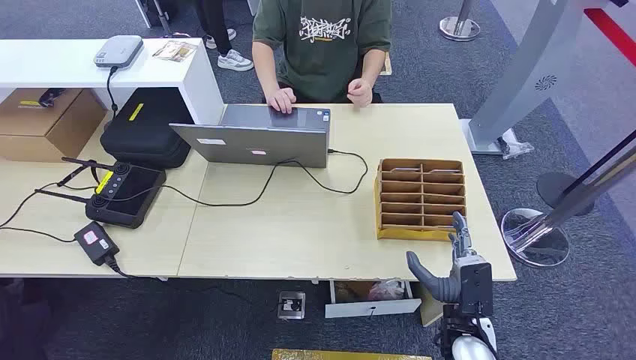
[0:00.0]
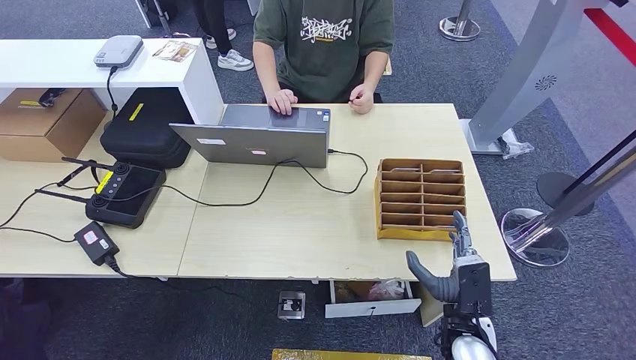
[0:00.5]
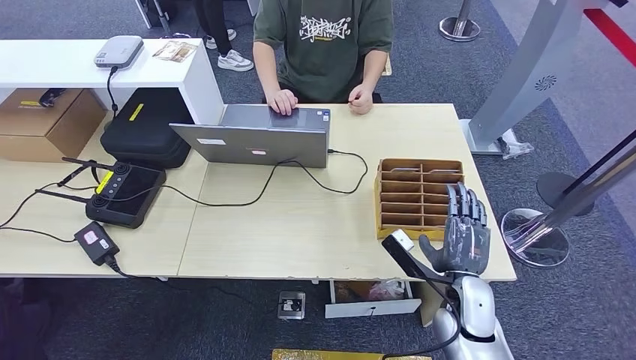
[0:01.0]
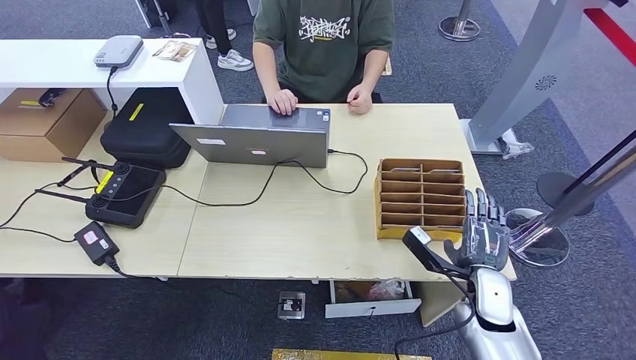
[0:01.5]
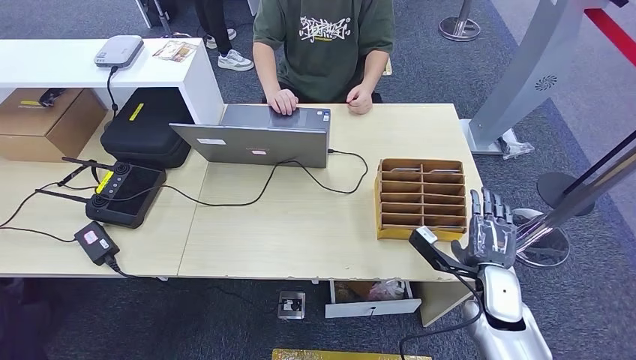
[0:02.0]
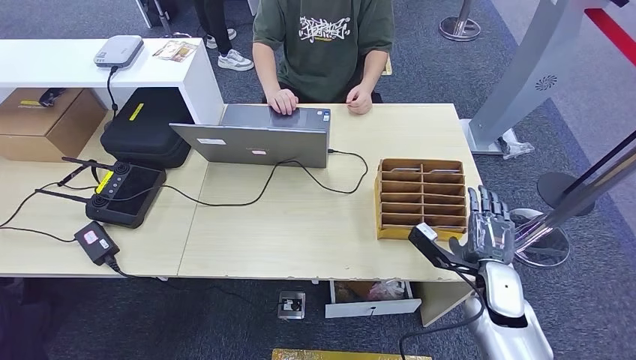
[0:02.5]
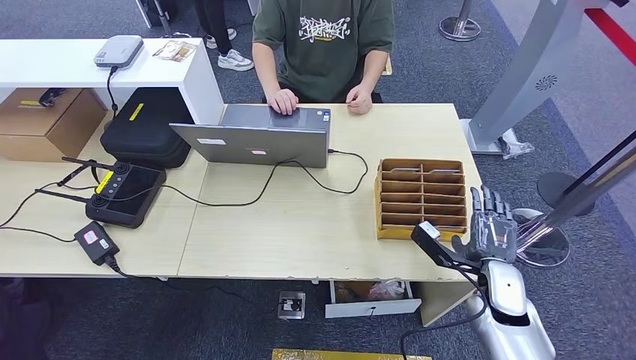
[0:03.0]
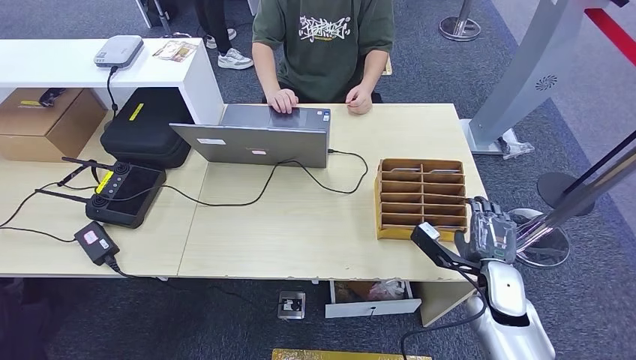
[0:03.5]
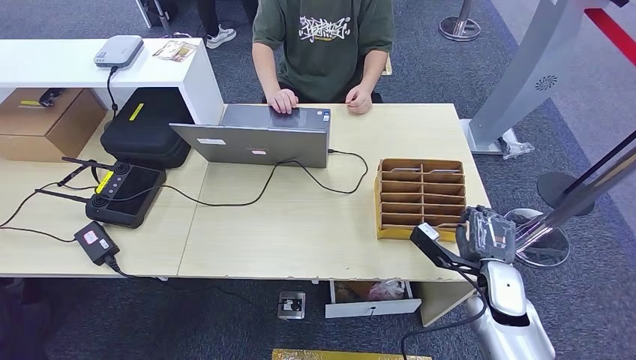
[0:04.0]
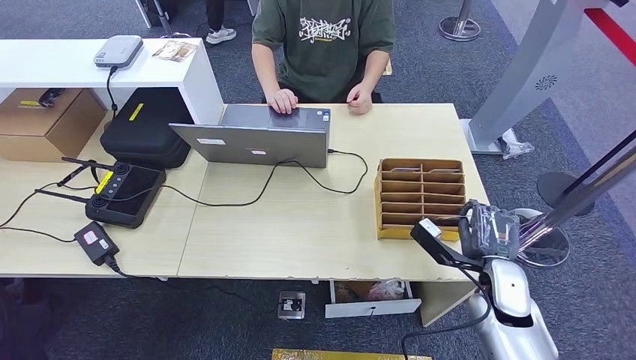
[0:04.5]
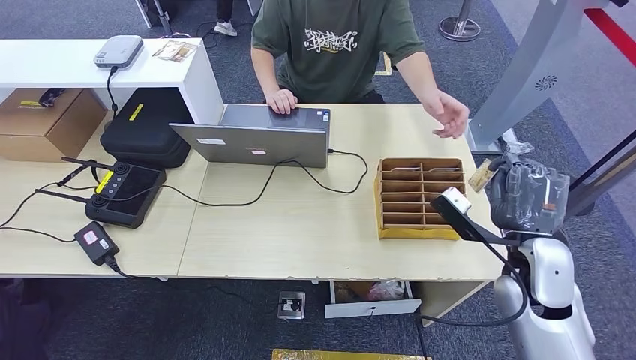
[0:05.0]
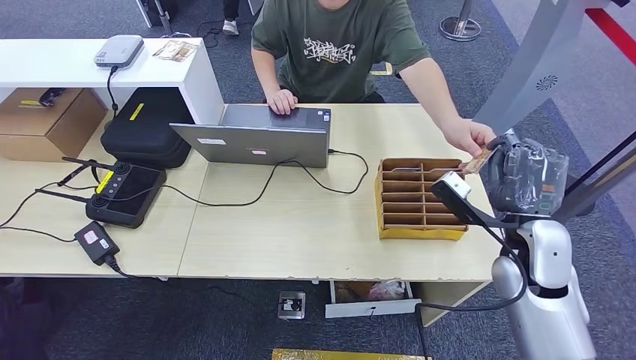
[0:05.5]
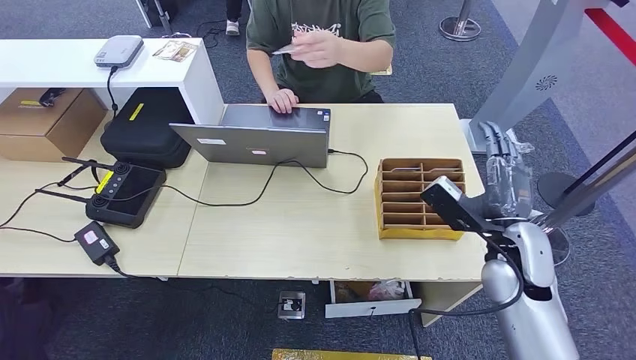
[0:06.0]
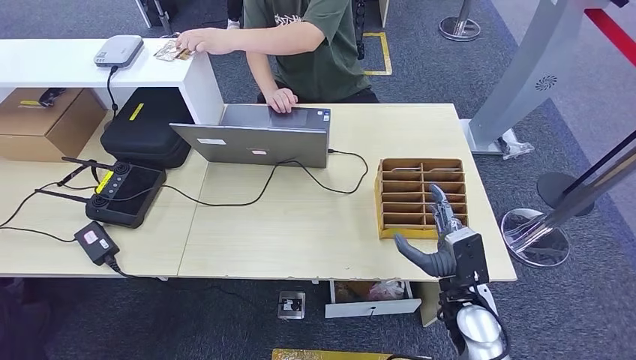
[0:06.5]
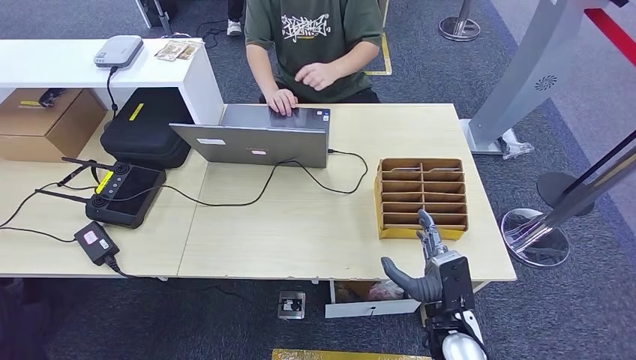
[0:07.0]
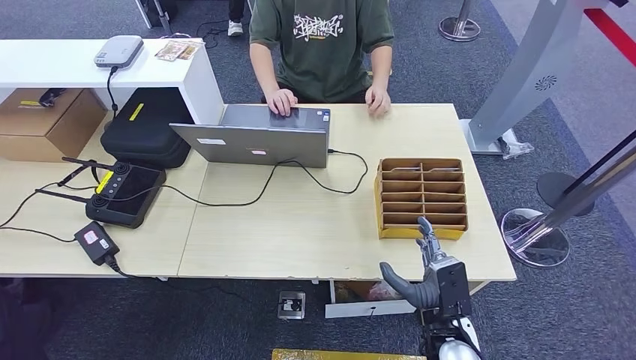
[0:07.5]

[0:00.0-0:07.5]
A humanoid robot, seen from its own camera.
Step, 0:00.0 to 0:04.5: Pick up the room card from the card holder.
Step, 0:05.0 to 0:07.0: Hand the room card to the target.
0:02.0 to 0:04.0: Both hands stay about where they are.
0:04.0 to 0:05.5: The right hand goes approximately 15 cm upward.
0:05.5 to 0:07.5: The right hand travels downward, to the left and backward by approximately 20 cm.
